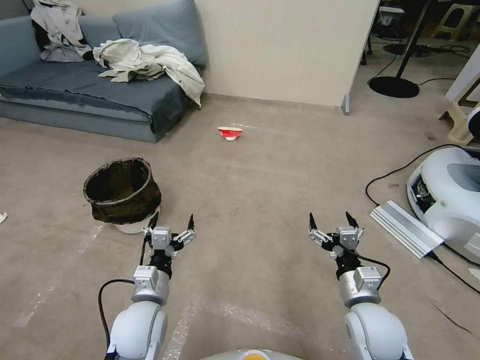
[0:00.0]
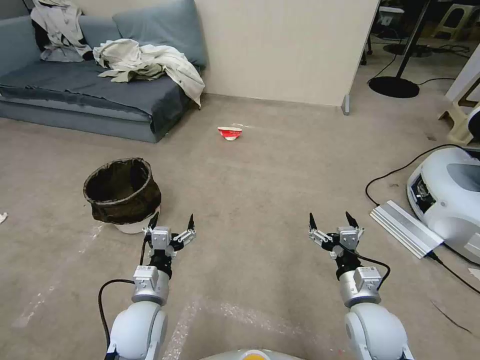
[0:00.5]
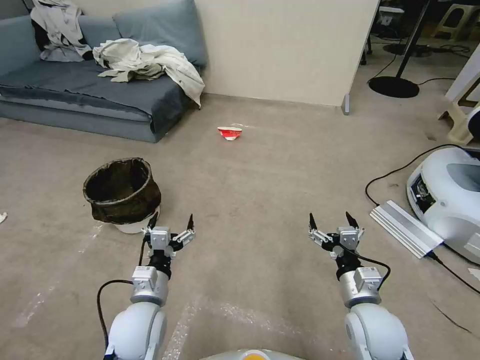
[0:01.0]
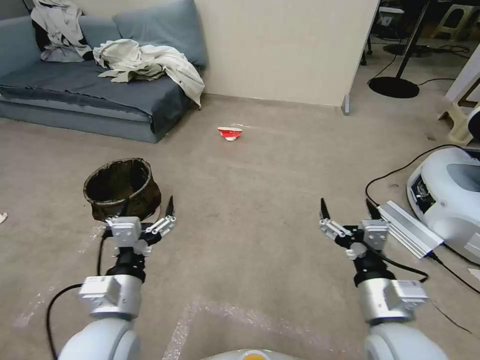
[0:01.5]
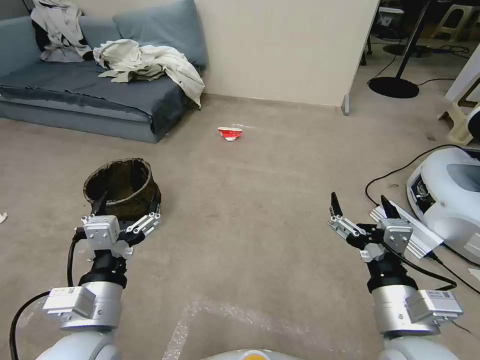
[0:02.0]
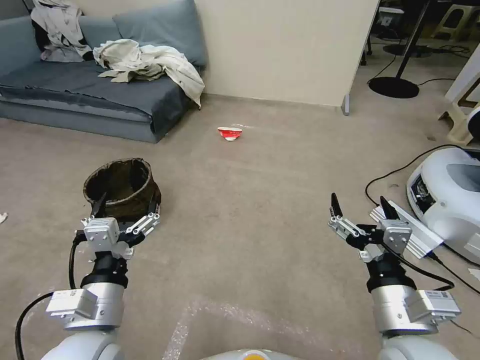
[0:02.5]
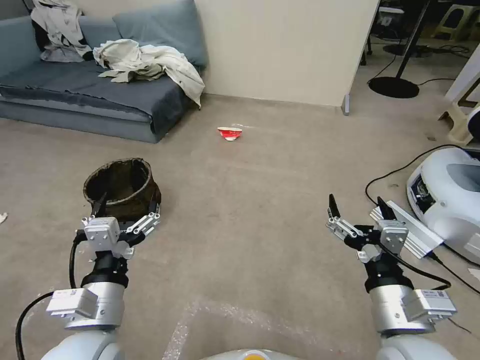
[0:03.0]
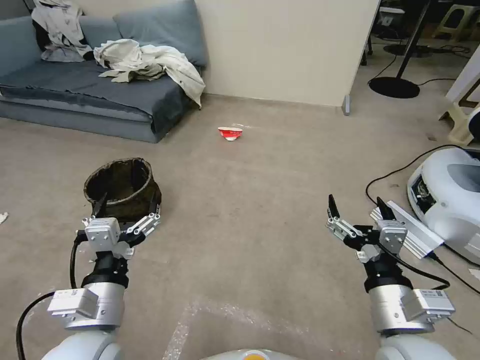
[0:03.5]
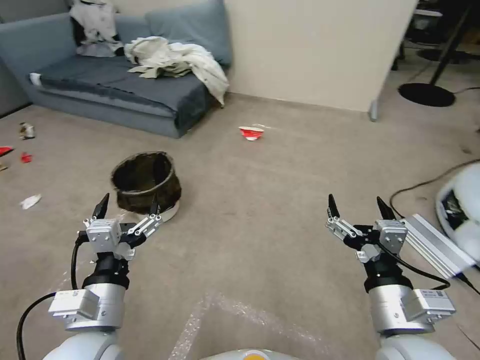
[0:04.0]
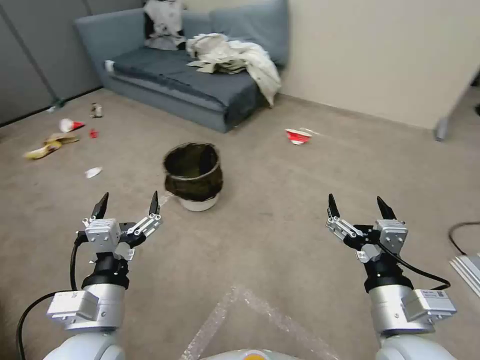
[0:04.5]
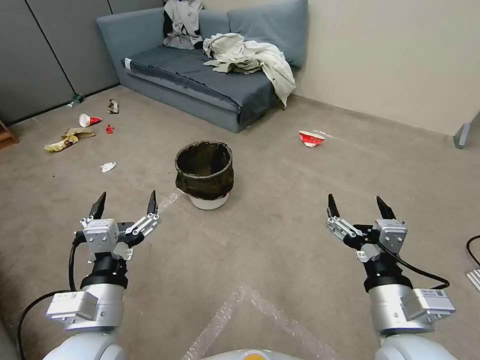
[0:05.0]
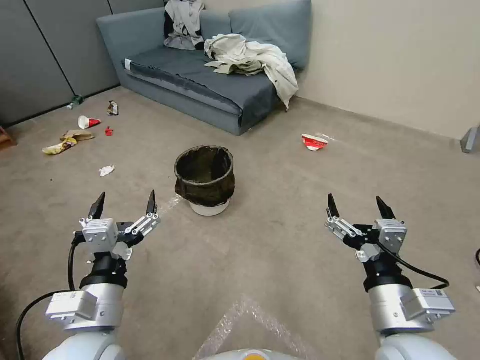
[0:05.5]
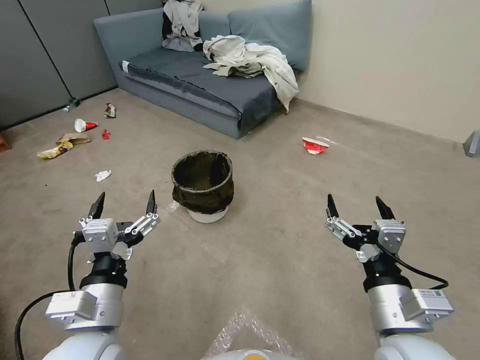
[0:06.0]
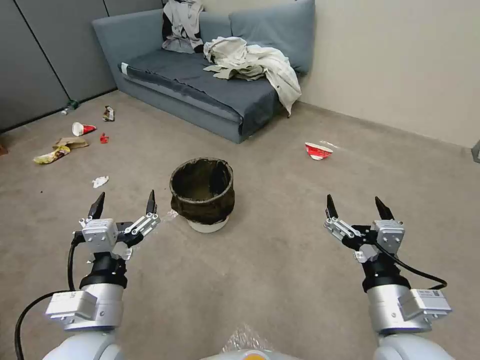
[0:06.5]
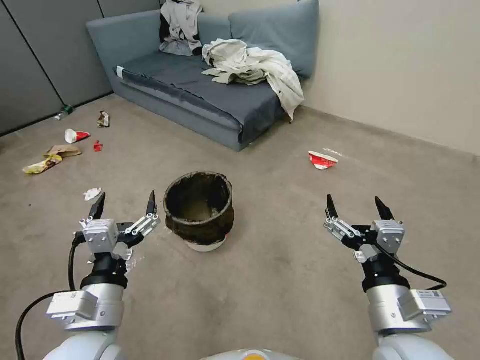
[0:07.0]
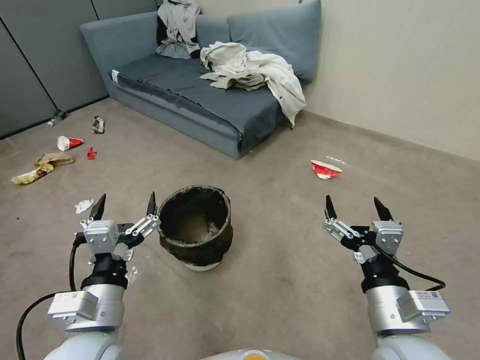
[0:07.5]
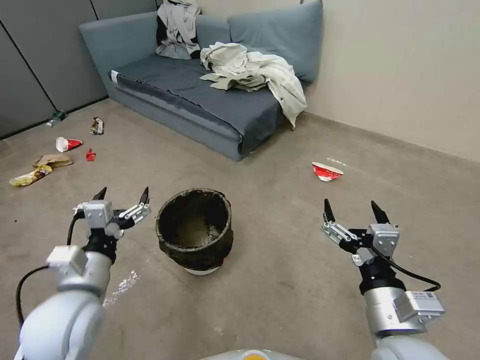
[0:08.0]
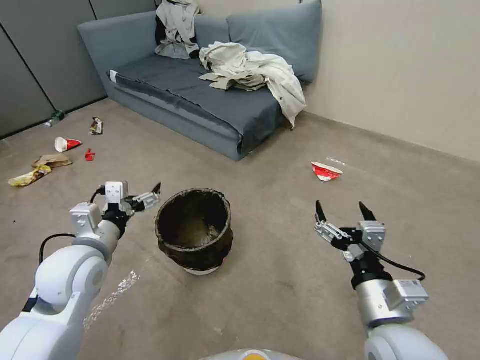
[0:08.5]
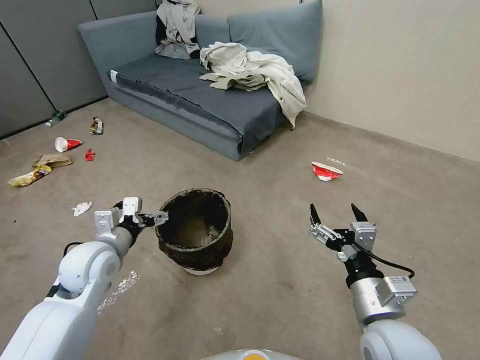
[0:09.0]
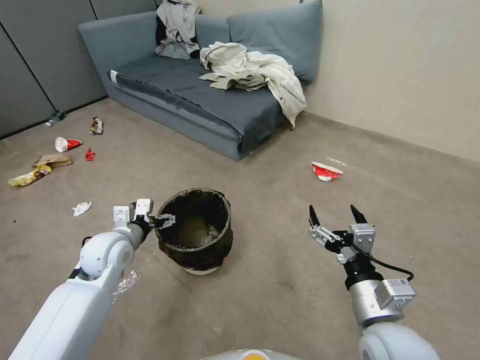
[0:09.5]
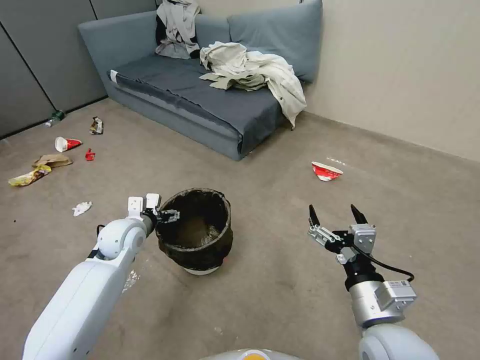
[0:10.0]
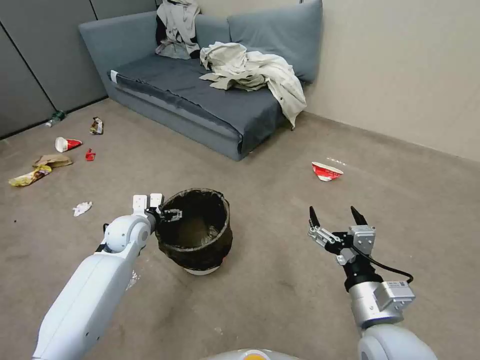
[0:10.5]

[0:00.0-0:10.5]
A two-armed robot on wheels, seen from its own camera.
Task of the whole recording: Pick up the trash can from the floor.
0:06.5 to 0:08.5: The left gripper is displaced forward and to the left by about 15 cm.
0:08.5 to 0:10.5: The left gripper goes about 15 cm forward and downward.

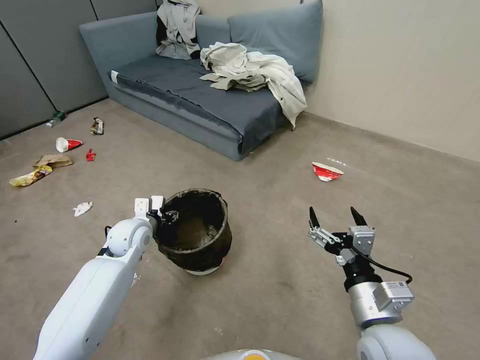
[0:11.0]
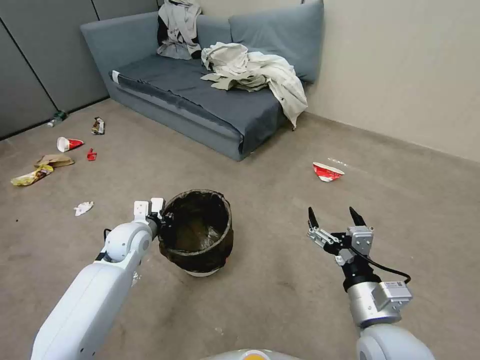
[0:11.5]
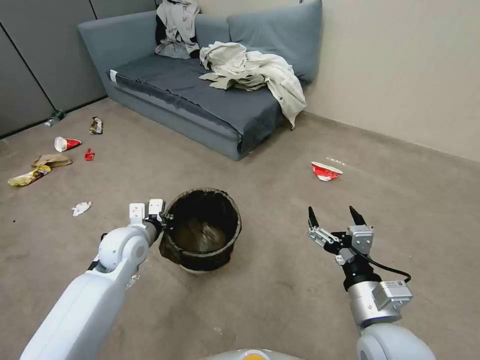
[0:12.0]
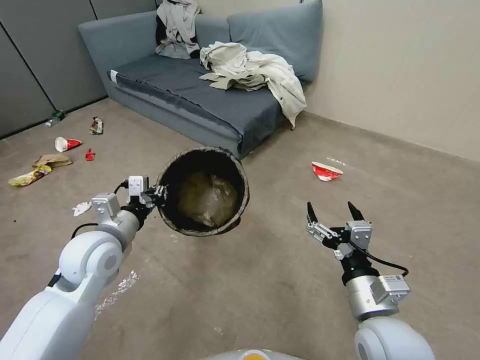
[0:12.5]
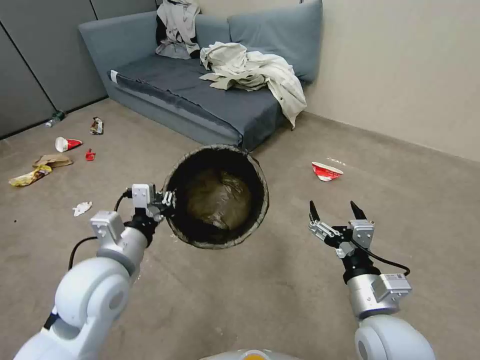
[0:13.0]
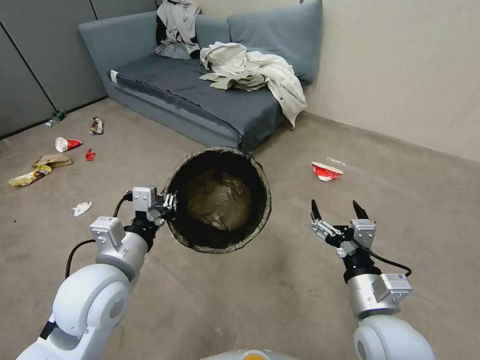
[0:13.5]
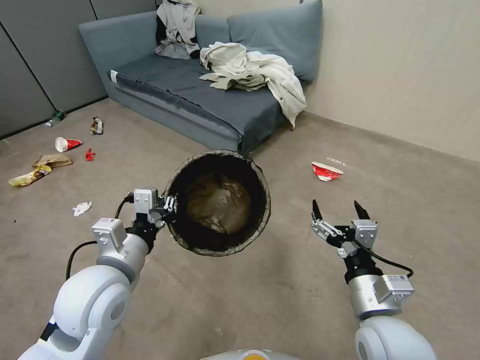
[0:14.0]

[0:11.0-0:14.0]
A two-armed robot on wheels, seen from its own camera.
Task of the whole recording: Pick up the trash can from the floor.
0:11.0 to 0:12.5: The left gripper heads upward and backward, covering about 15 cm, and closes its fingers.
0:12.5 to 0:14.0: The left gripper travels backward and to the right by about 10 cm.
